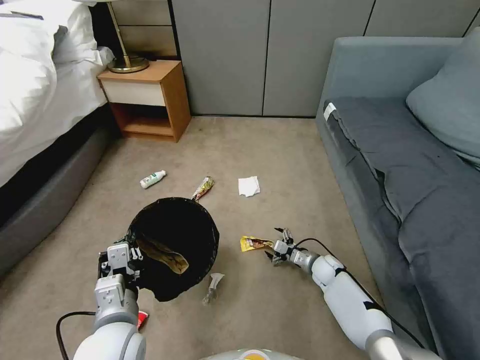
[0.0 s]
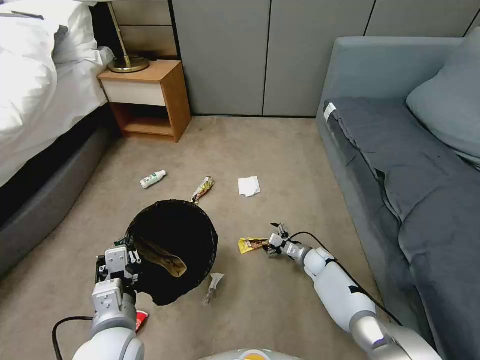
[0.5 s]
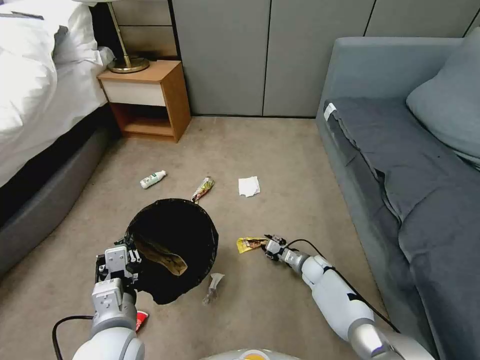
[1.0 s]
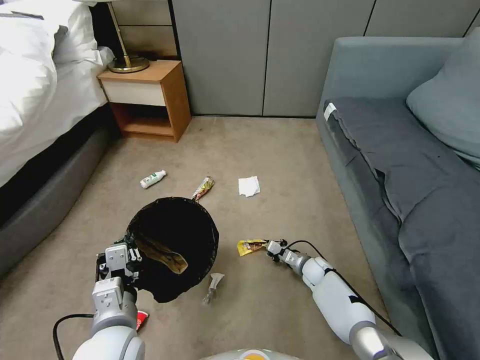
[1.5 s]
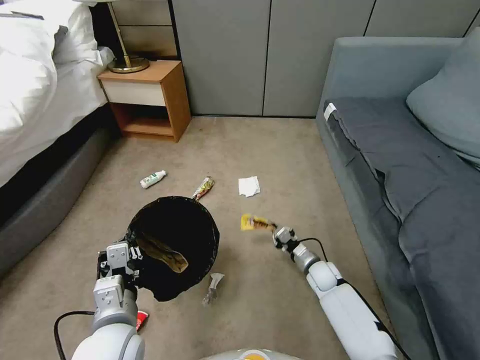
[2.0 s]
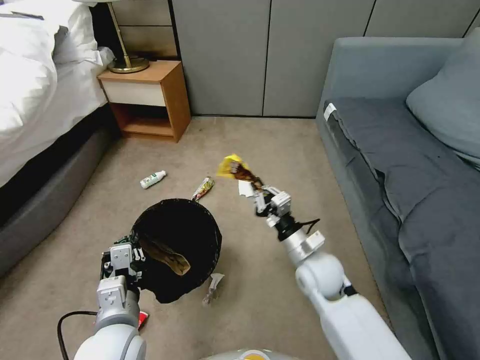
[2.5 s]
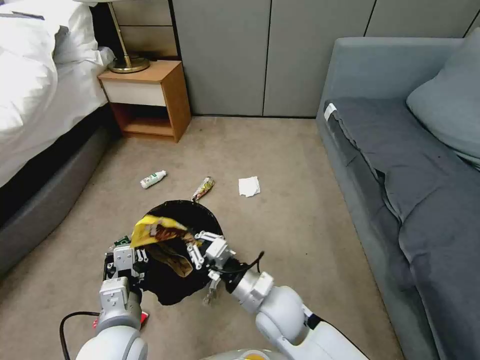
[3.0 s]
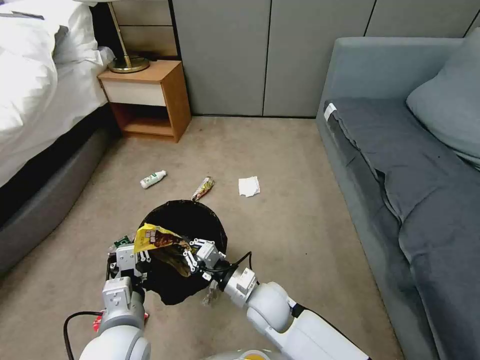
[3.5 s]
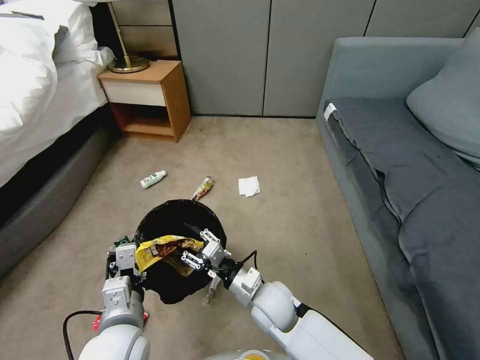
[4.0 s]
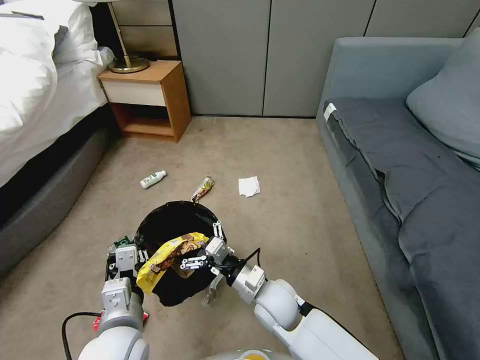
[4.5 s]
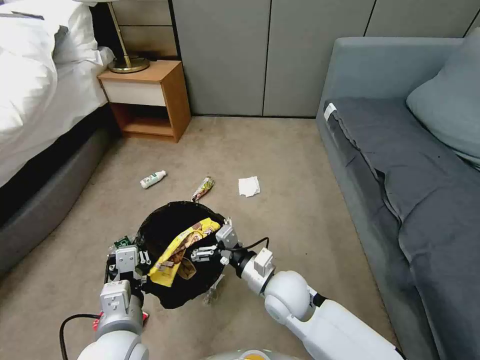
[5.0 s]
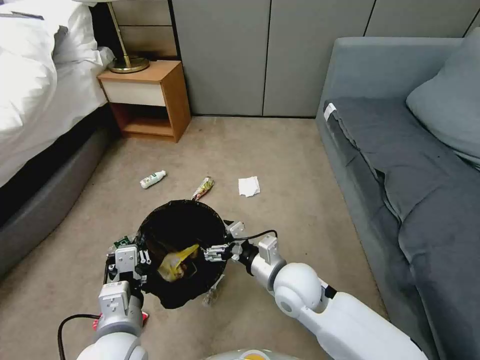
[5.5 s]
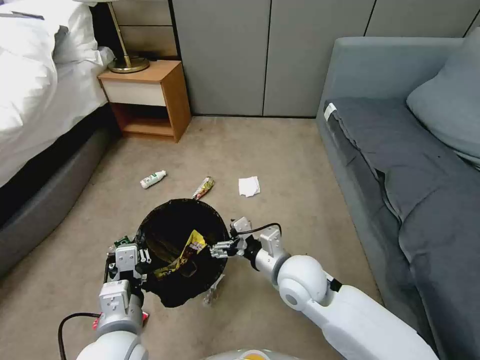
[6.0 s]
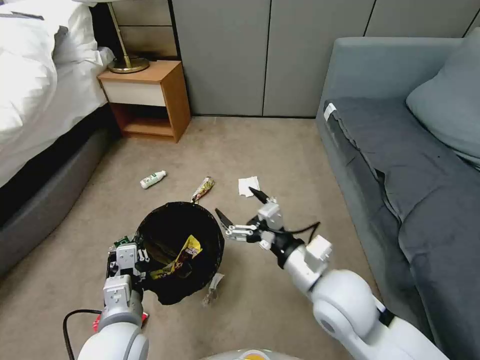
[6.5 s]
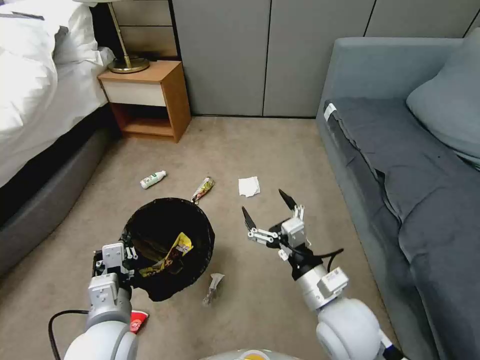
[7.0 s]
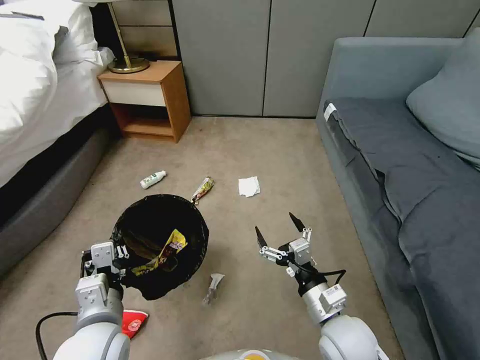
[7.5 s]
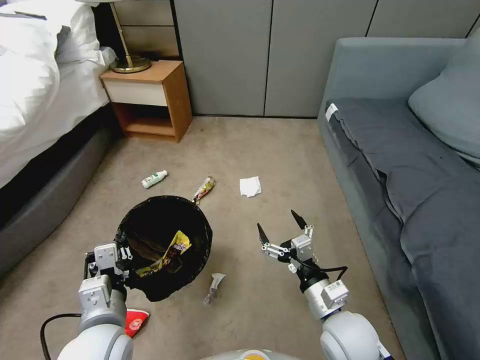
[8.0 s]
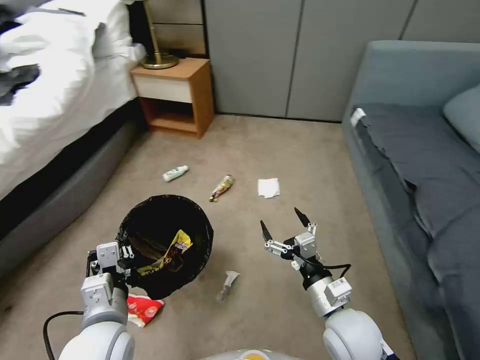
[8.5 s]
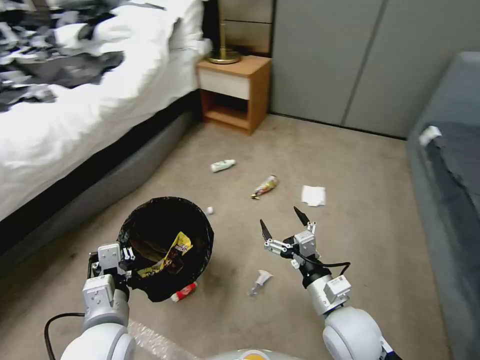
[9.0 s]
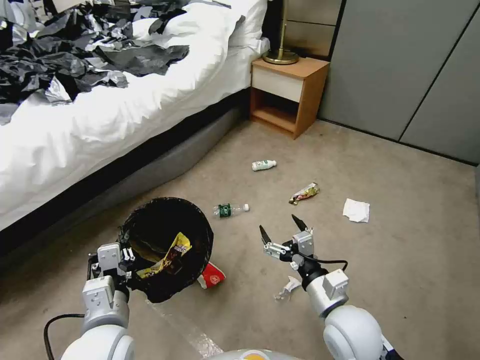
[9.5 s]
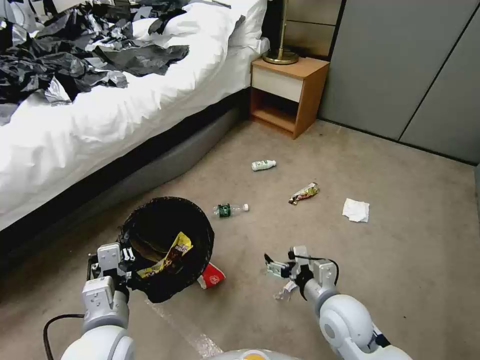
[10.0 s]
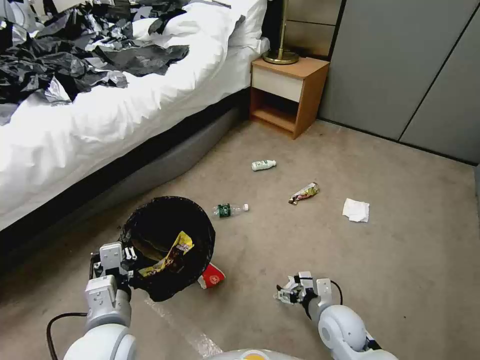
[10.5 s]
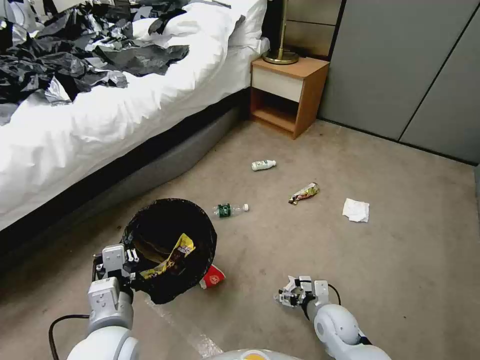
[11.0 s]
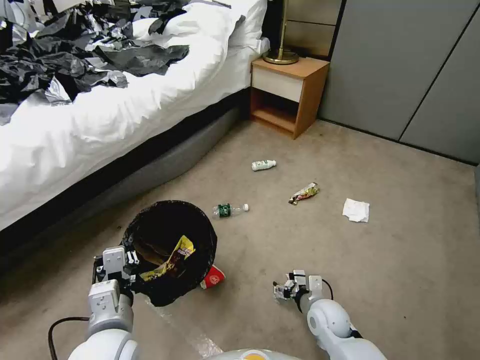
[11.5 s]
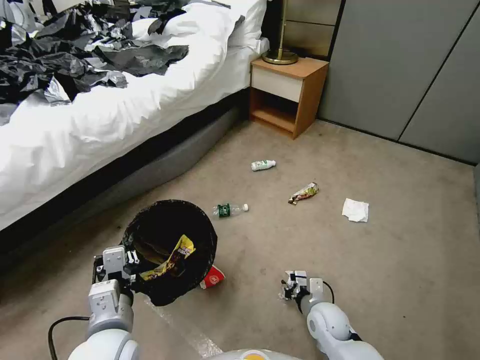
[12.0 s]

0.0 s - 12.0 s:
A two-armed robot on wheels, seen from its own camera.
Task of the whole recording: Pick up the trash bin, then pick up the garbage from the floor and place it into the trash bin.
0.0 s - 2.0 s: The right gripper closes up.
2.0 s - 4.0 s: The right gripper heads to the left, upward and backward, covering roughly 25 cm, and opens up.
4.0 s - 6.0 s: The right gripper shifts approximately 10 cm upward, and opens.
6.0 s - 8.0 s: The right gripper travels backward and to the right by approximately 10 cm.
10.0 s - 12.0 s: The right gripper shifts approximately 15 cm downward, and closes up.

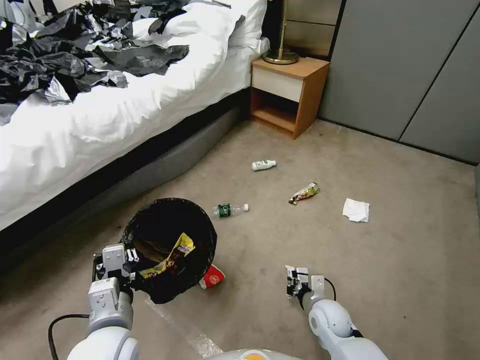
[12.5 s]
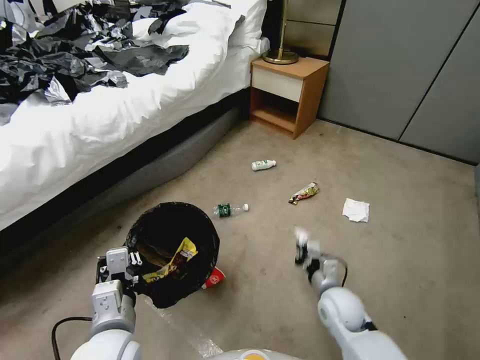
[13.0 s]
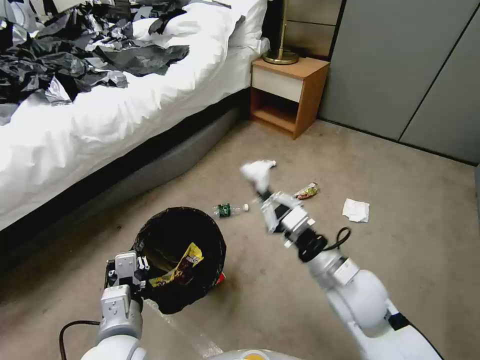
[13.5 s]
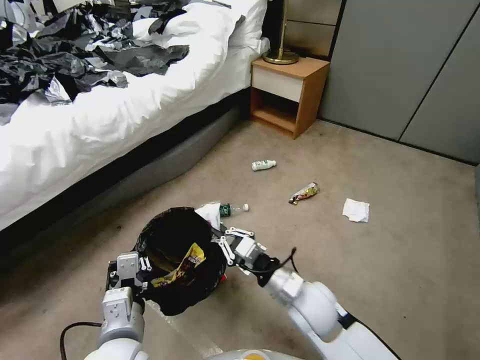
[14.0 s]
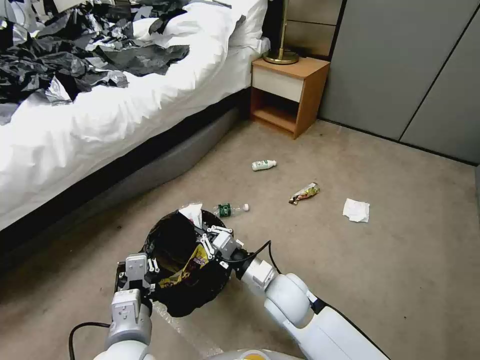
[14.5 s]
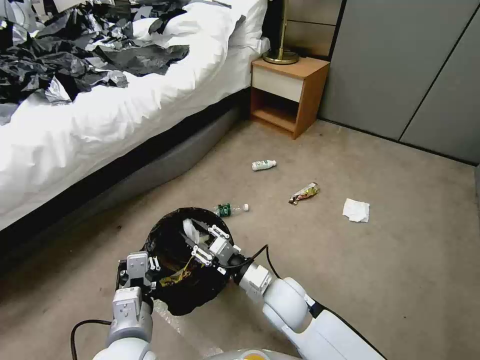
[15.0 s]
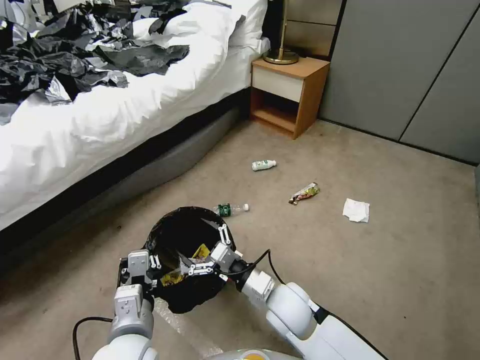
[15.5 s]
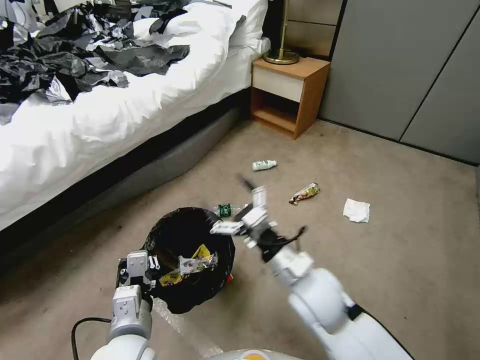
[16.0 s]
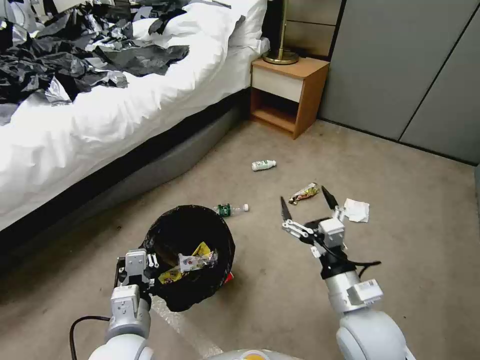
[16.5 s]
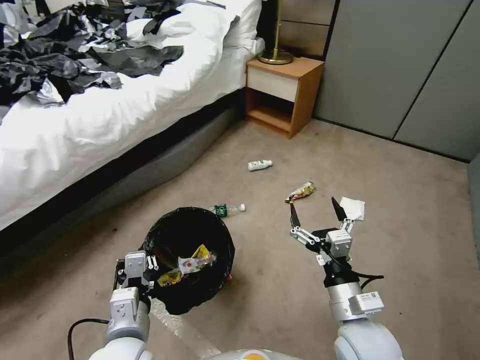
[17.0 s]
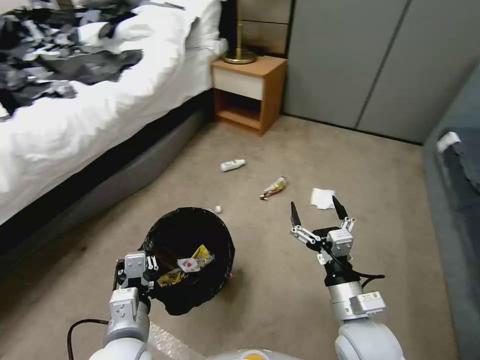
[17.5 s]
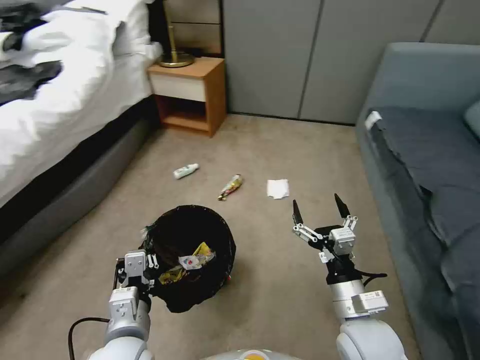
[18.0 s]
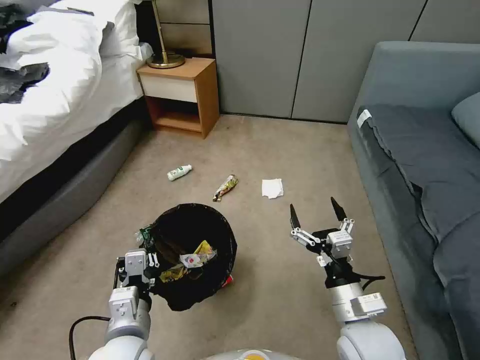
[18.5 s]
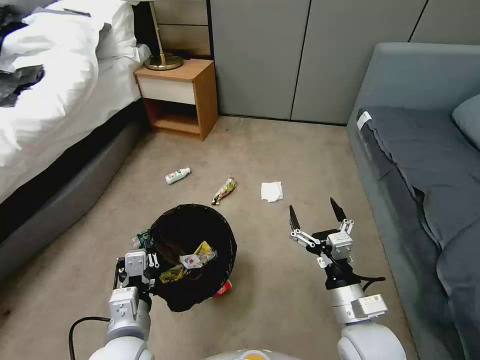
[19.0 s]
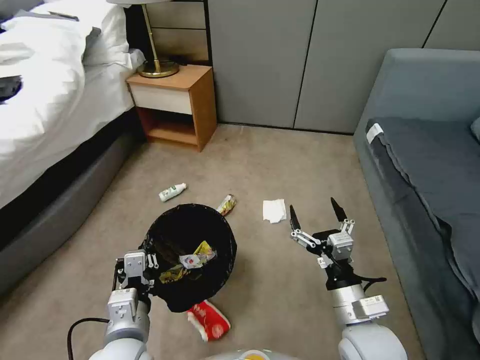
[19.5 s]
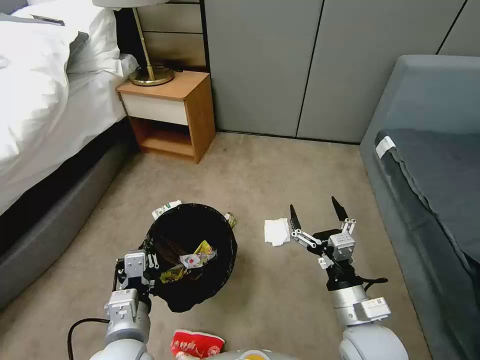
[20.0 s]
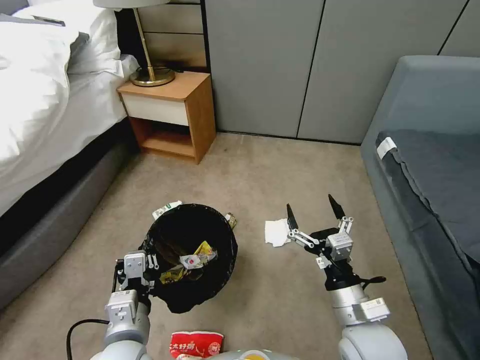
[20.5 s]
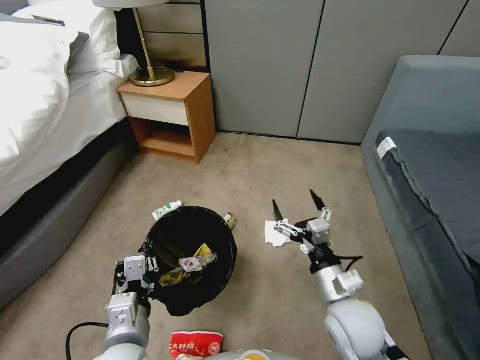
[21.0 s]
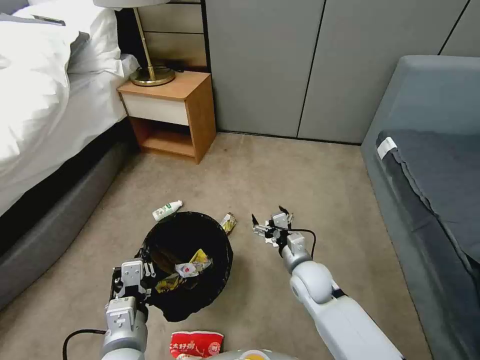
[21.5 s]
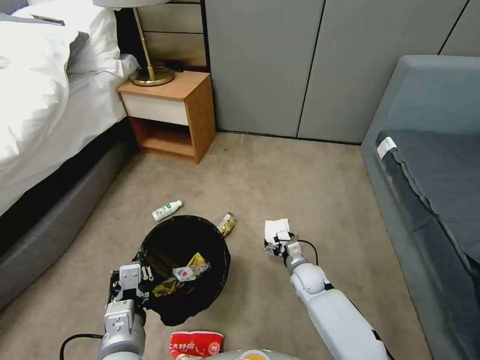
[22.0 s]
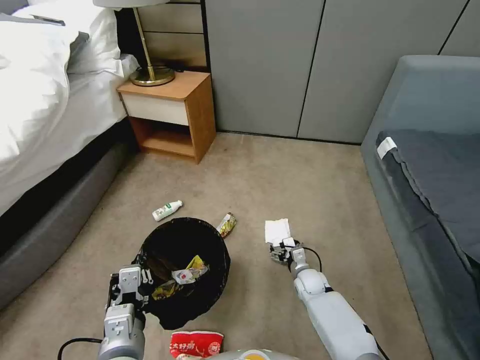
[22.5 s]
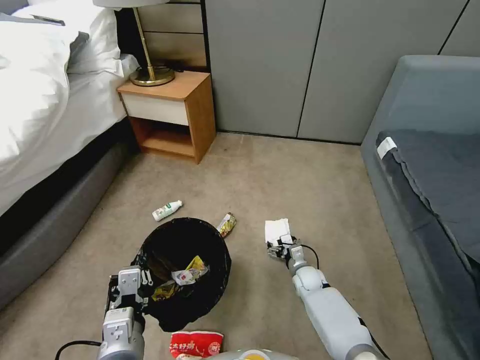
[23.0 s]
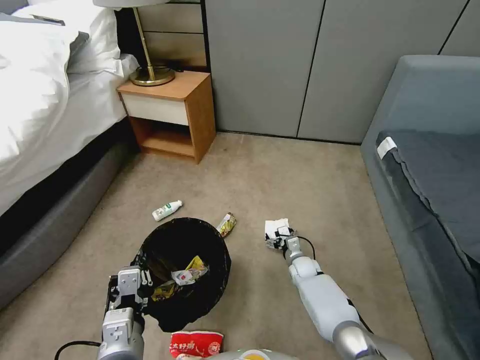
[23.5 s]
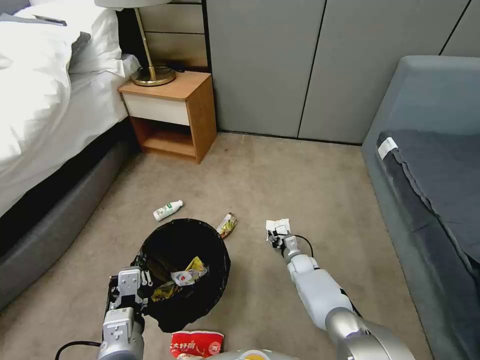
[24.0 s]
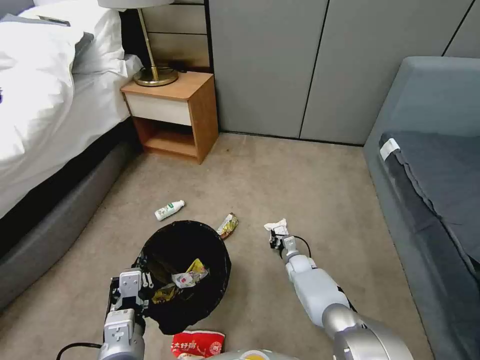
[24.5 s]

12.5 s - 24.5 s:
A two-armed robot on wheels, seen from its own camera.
Task of the whole recording: Pick up the trash bin, then pick up the garbage from the floor and place it into the trash bin.
12.5 s - 14.5 s: The right gripper goes roughly 20 cm upward and to the left.
14.5 s - 16.5 s: The right gripper travels to the right, backward and upward by roughly 15 cm, and opens.
20.5 s - 22.5 s: The right gripper shifts about 30 cm downward and forward.
22.5 s - 24.5 s: The right gripper is displaced forward by some 5 cm, and closes.

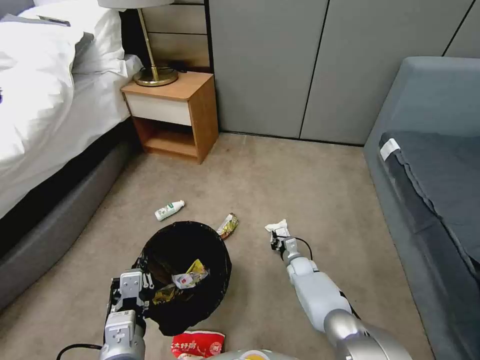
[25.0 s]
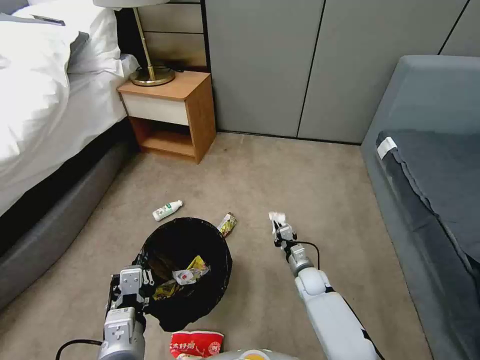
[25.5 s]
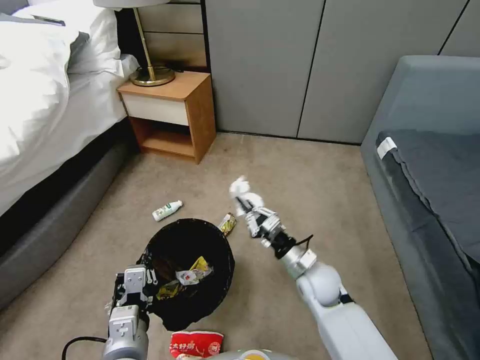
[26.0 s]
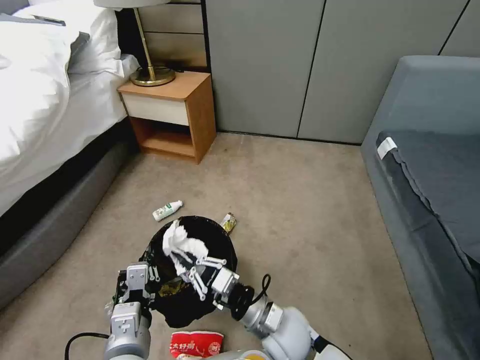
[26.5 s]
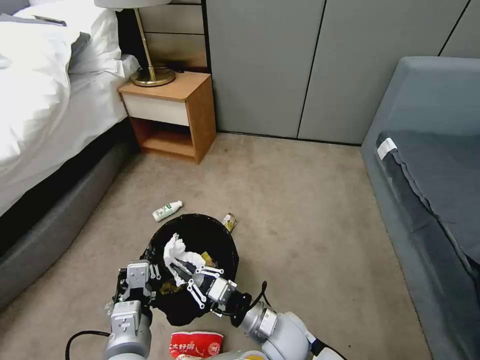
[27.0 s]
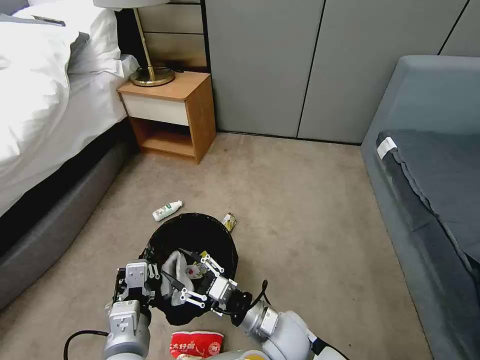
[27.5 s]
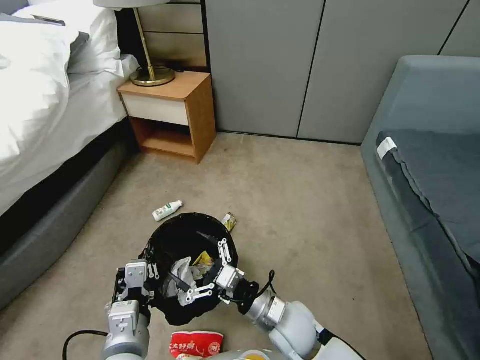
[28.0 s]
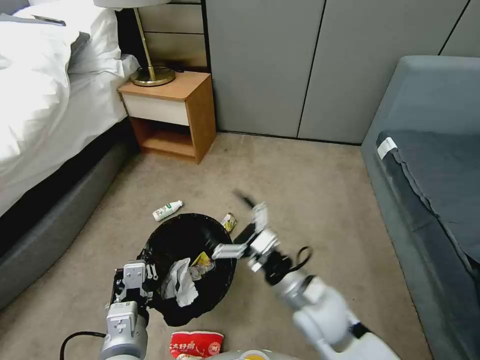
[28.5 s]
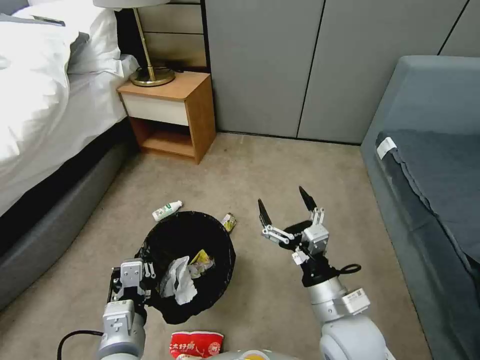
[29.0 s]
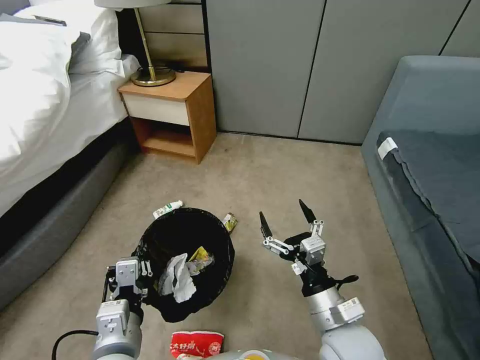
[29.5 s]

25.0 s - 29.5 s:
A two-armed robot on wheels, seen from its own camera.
Task of the whole recording: Pick up the trash bin, then pick up the garbage from the floor and place it into the trash bin.
25.0 s - 27.0 s: The right gripper shifts about 30 cm backward, upward and to the left.
27.0 s - 29.5 s: The right gripper moves to the right and upward, approximately 15 cm, and opens.
